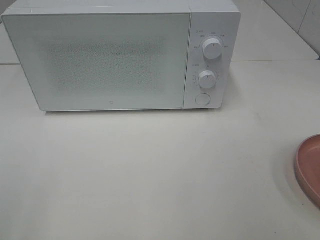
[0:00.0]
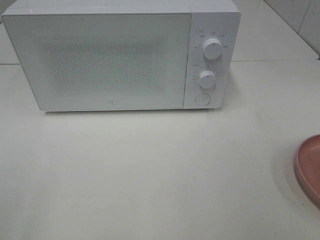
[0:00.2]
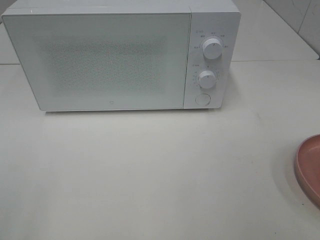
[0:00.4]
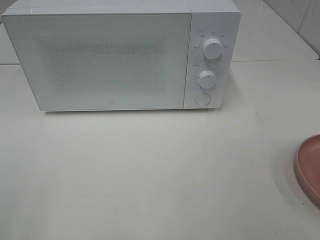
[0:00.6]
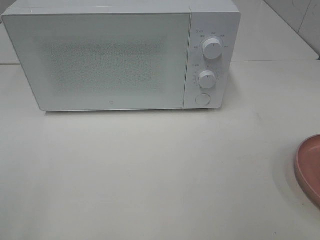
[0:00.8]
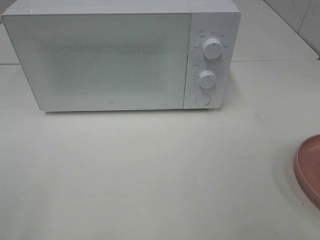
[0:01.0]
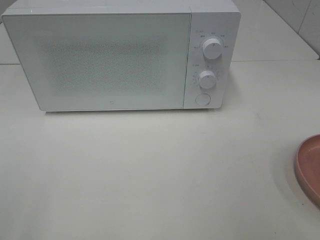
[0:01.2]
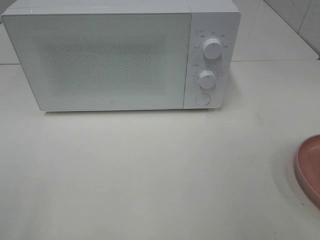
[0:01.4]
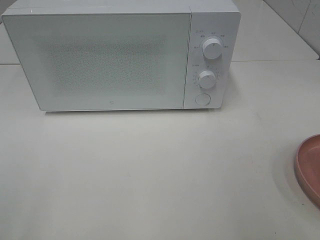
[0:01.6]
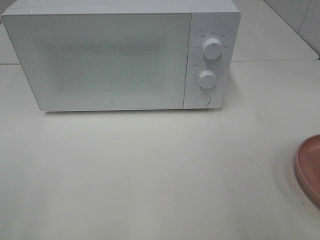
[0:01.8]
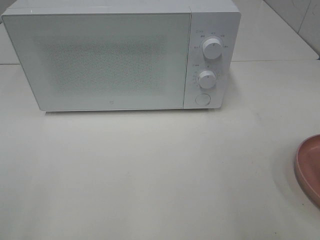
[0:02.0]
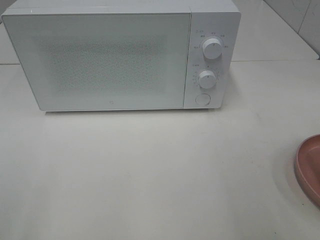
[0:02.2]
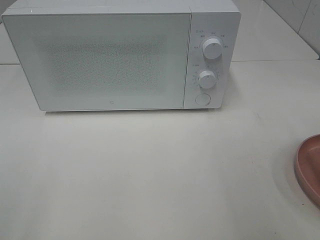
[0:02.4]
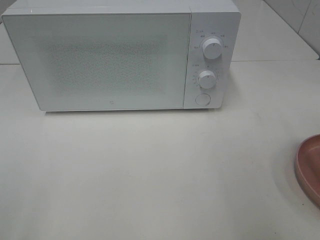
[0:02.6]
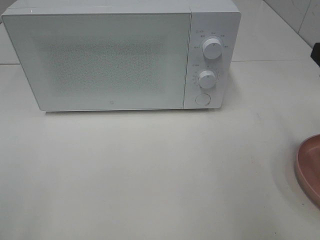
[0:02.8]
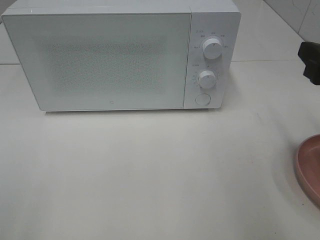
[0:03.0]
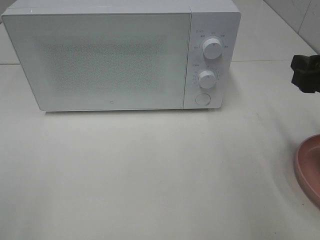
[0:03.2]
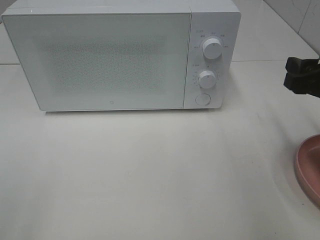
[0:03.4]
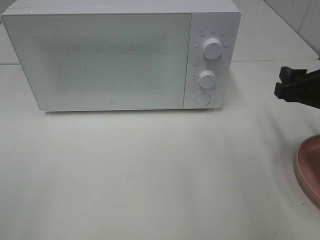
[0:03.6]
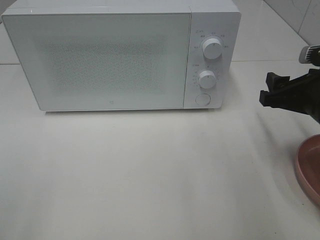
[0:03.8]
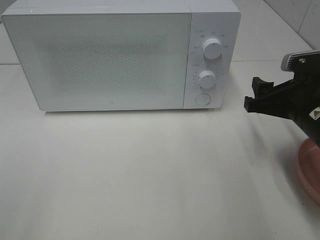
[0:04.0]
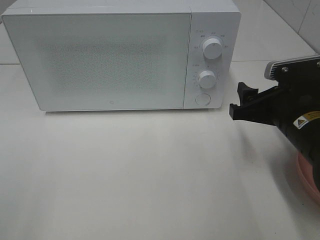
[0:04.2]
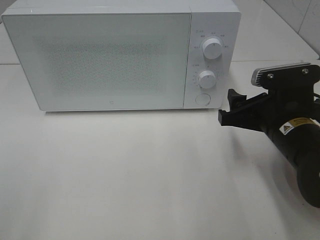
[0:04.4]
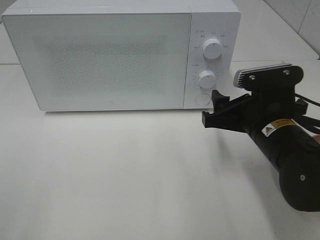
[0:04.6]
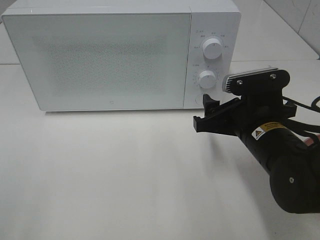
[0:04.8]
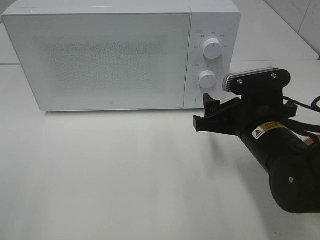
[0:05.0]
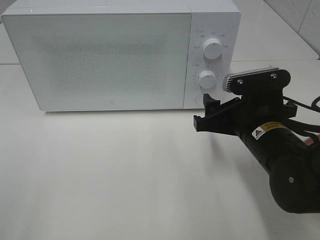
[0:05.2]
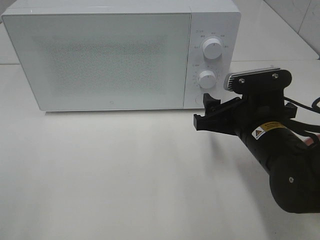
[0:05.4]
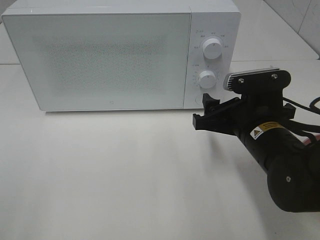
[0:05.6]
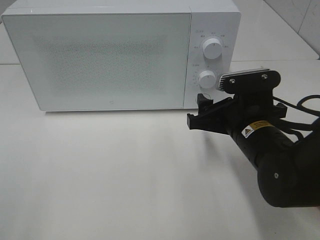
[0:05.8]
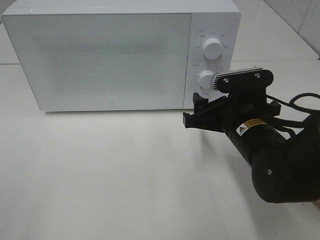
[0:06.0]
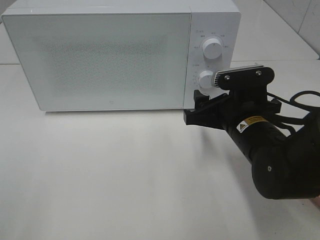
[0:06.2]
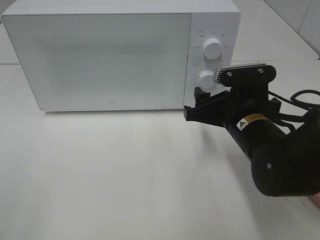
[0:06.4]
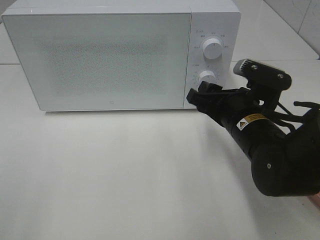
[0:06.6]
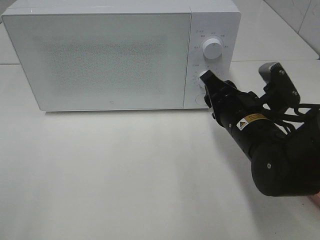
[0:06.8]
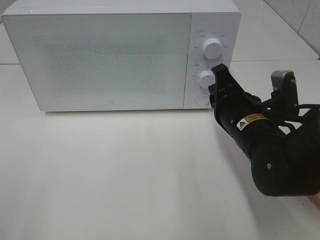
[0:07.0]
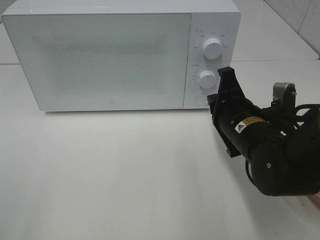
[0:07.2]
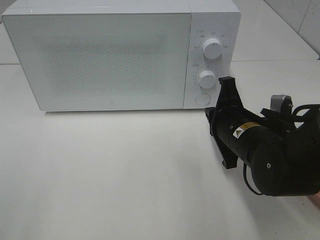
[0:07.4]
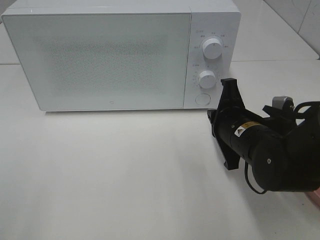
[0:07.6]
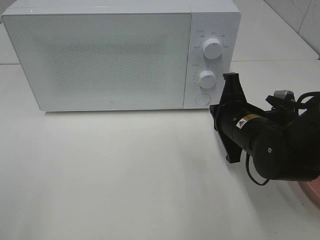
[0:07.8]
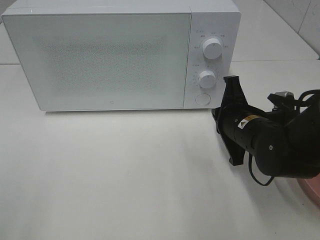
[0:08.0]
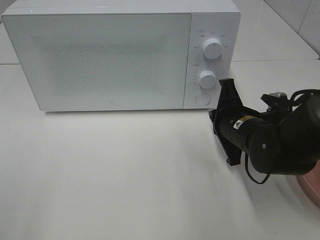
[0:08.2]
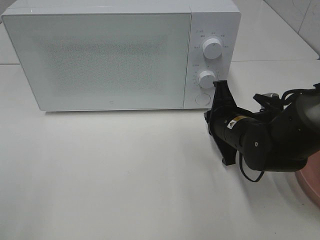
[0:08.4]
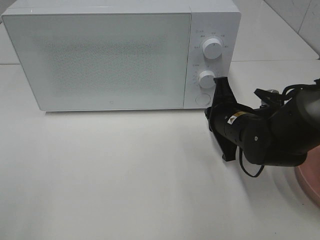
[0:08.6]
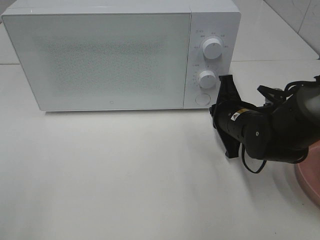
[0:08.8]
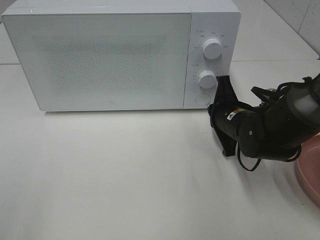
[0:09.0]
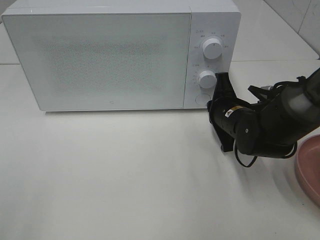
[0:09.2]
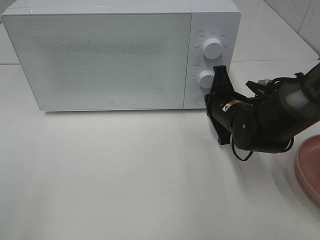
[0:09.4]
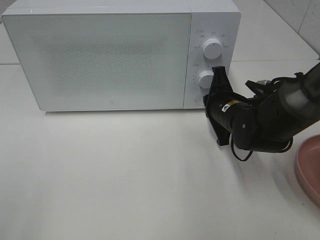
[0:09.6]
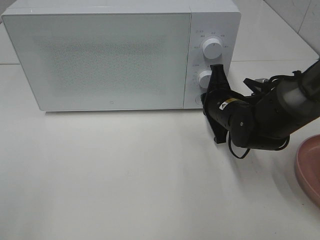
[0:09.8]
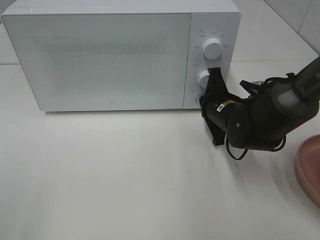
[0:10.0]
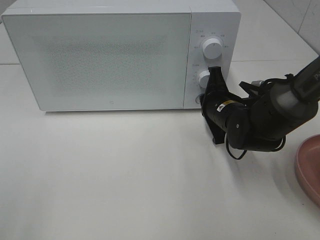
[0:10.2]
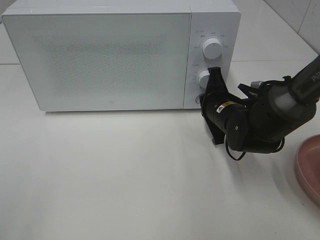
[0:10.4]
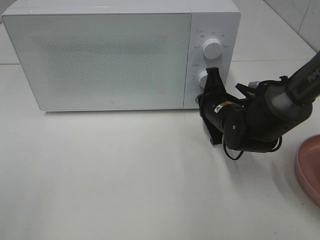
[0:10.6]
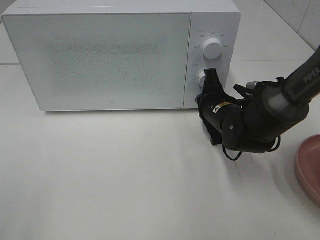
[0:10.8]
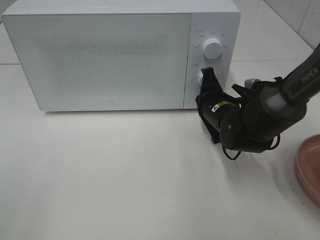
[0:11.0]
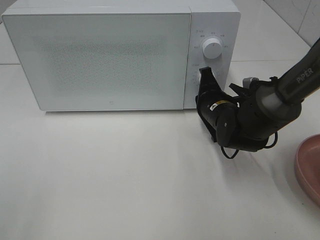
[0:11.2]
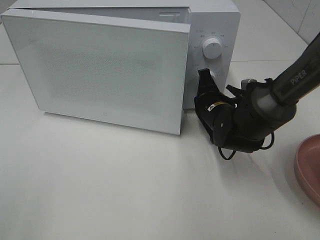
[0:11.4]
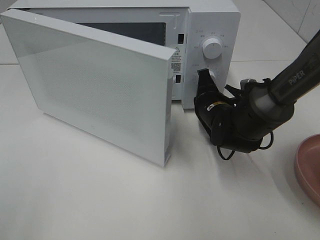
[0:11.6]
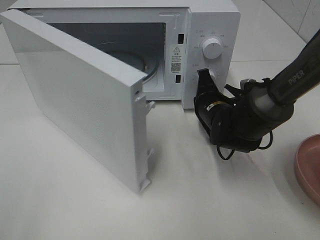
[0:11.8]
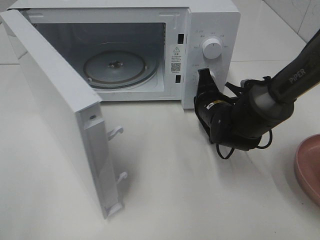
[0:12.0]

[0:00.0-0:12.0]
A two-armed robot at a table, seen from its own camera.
Task of the whole recording: Heat the burger.
0:01.6 to 0:03.0: The right gripper travels forward by some 15 cm.
0:03.0 to 0:04.4: The right gripper heads downward and to the left, covering roughly 15 cm.
0:04.4 to 0:06.0: The right gripper changes place by roughly 5 cm.
0:06.0 to 0:07.6: The right gripper closes its fingers.
0:07.6 to 0:09.0: The right gripper heads forward, covering approximately 5 cm.
0:09.0 to 0:10.4: There are only small adjustments of the grippers.

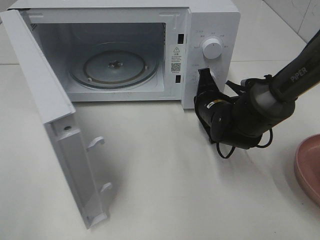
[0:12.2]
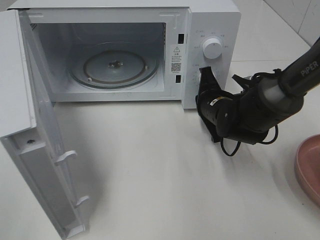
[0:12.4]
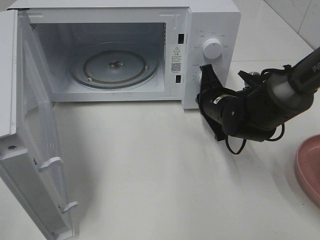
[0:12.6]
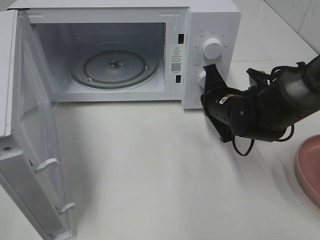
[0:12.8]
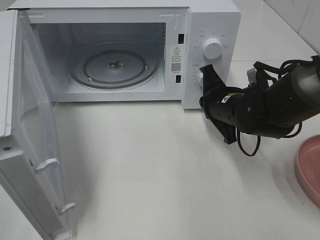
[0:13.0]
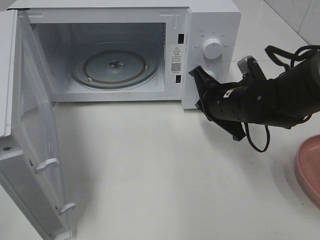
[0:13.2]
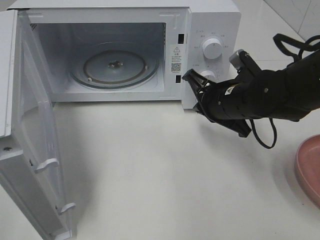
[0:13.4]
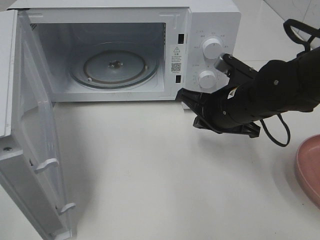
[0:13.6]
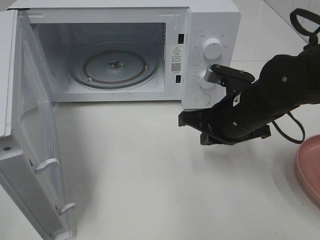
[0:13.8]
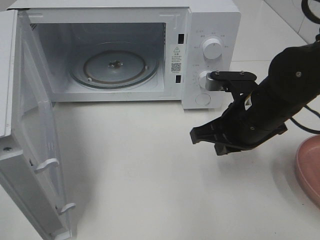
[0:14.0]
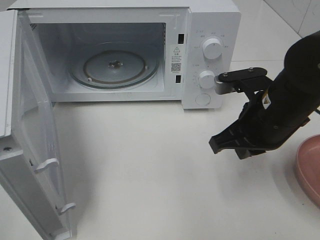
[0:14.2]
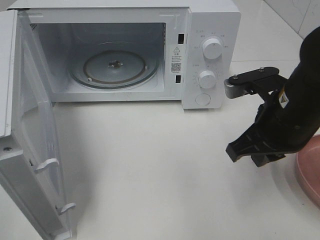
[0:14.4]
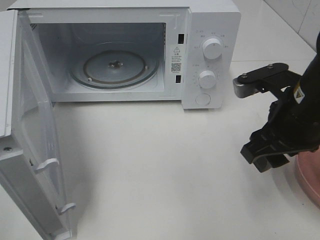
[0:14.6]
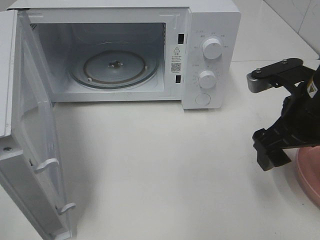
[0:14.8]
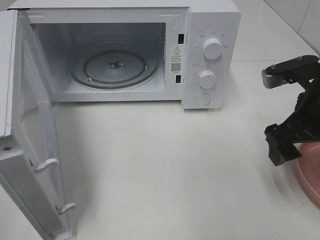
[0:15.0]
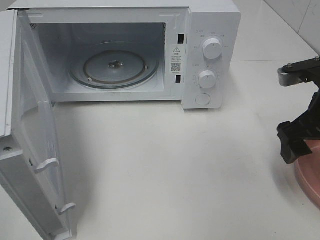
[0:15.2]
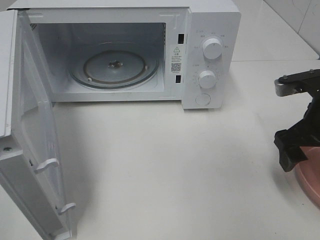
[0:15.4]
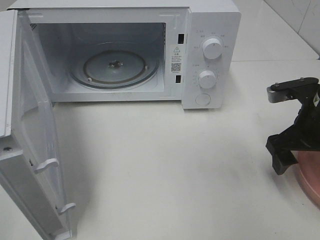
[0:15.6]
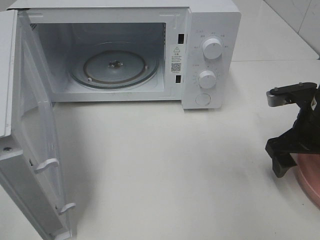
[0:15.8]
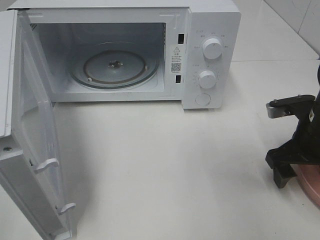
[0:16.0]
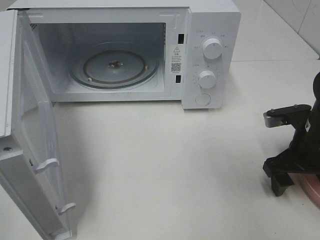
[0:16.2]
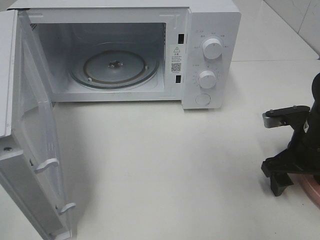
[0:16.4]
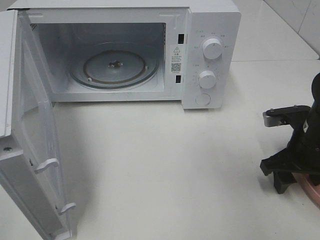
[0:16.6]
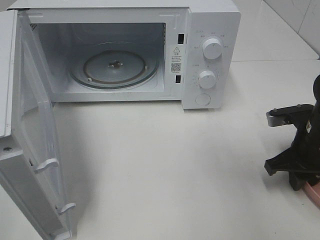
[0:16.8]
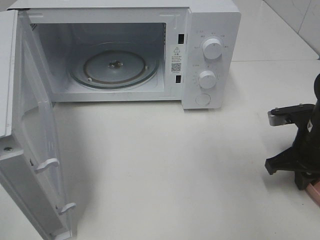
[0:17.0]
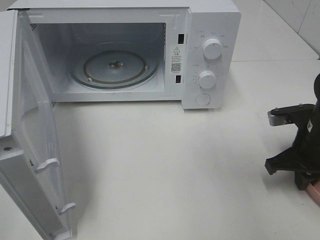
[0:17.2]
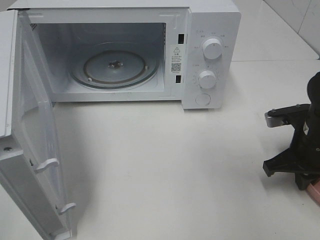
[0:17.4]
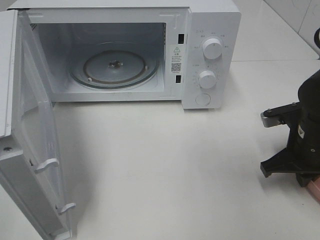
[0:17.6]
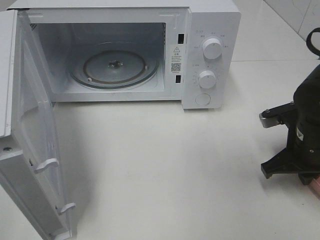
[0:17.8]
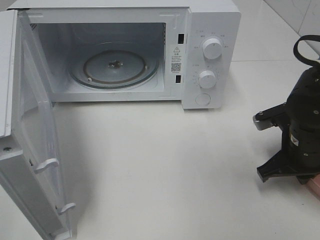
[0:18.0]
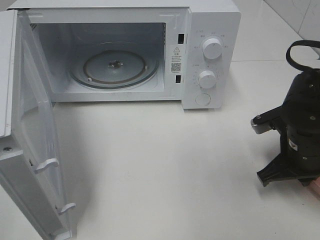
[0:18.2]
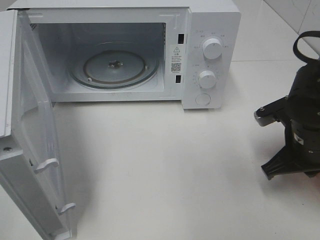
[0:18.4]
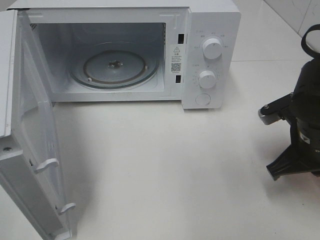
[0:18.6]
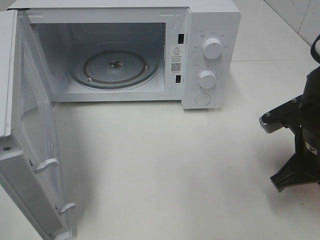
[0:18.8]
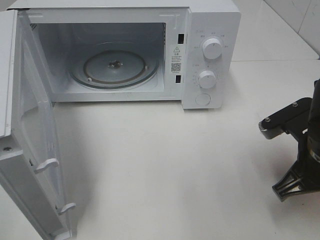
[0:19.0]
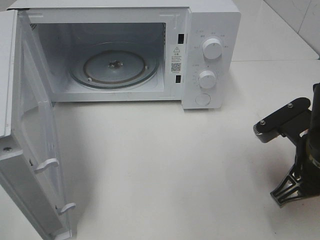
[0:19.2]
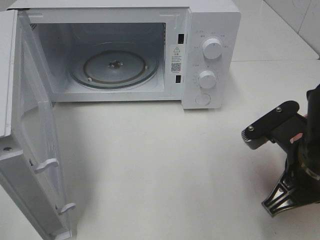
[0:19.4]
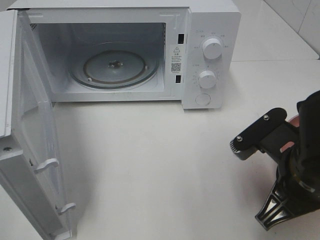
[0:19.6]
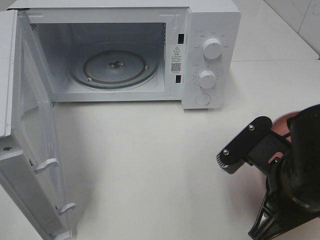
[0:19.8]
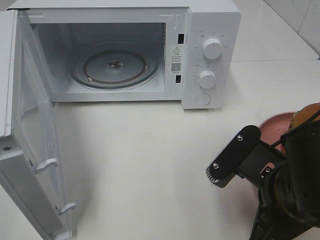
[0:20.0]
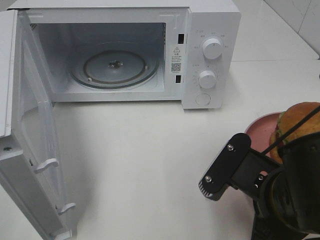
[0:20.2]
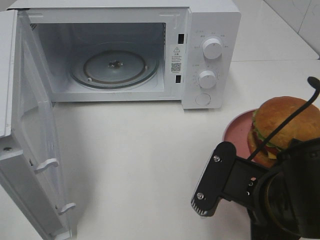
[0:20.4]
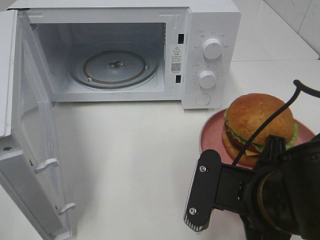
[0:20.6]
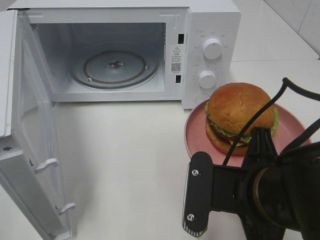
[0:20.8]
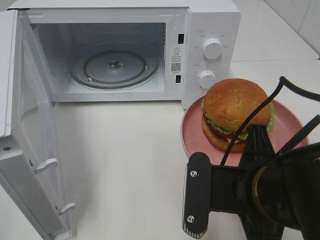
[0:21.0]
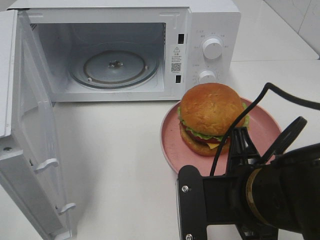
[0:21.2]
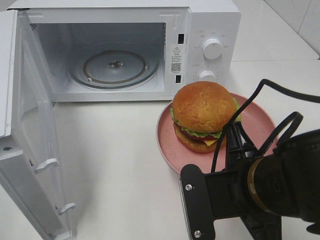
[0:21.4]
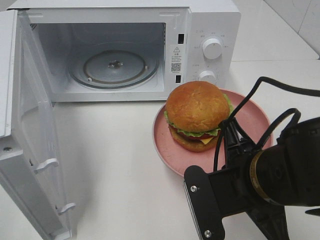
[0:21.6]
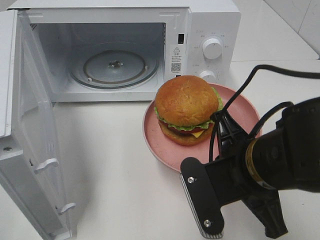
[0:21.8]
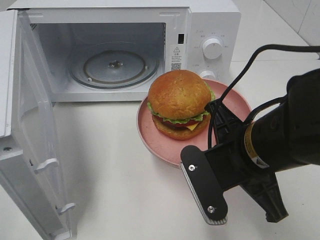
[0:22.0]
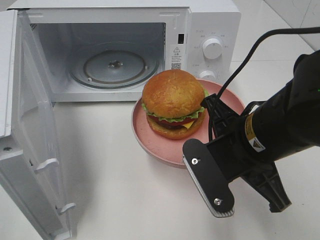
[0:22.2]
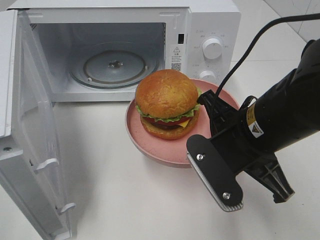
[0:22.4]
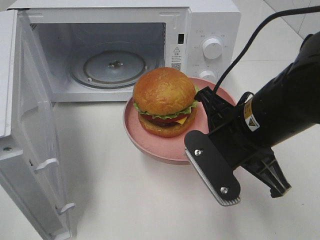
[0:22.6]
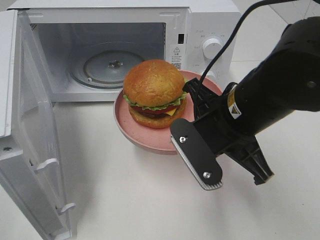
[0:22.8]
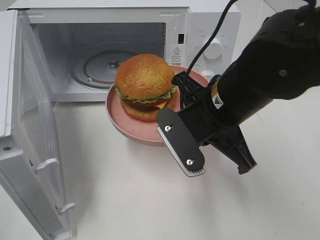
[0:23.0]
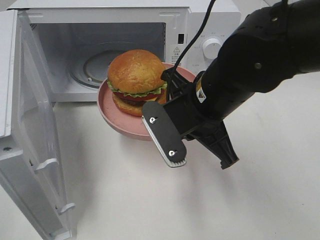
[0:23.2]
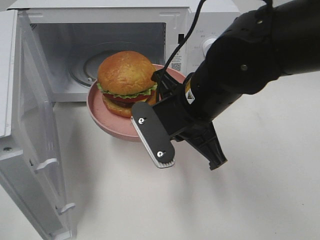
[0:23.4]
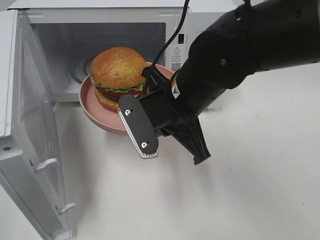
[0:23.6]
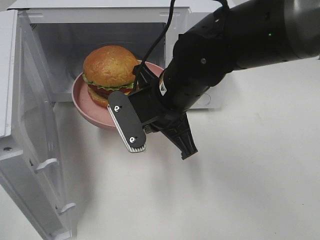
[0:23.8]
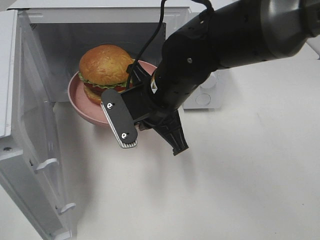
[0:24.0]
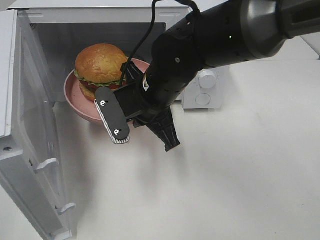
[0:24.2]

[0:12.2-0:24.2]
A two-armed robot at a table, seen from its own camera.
Task of the whole recording: Heat the burger.
Step, 0:13.0 to 0:17.6: Right hand: grab the plate with the hamburger.
0:12.2 to 0:13.8: The right gripper goes about 10 cm backward and upward.
0:13.8 to 0:15.2: The right gripper is displaced to the right and upward by some 10 cm, and opens its fingers.
0:15.2 to 0:16.6: The right gripper heads downward, covering approximately 10 cm.
0:16.6 to 0:18.2: The right gripper closes its fingers.
0:18.2 to 0:19.8: The right gripper travels backward, to the left and upward by some 15 cm.
0:21.2 to 0:22.6: The right gripper moves forward, roughly 10 cm.
0:22.6 to 0:24.2: The right gripper is displaced to the left and forward by about 15 cm.
